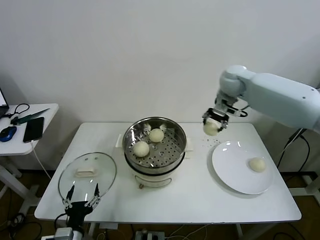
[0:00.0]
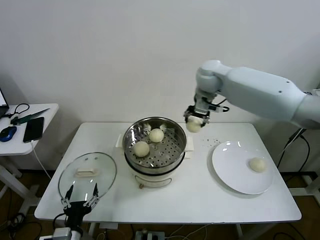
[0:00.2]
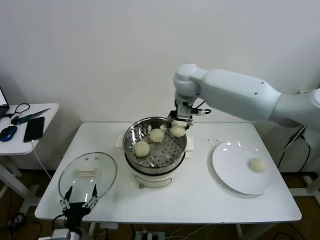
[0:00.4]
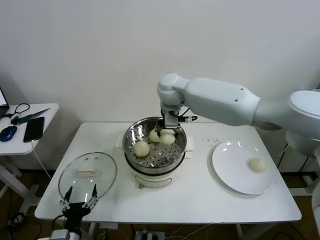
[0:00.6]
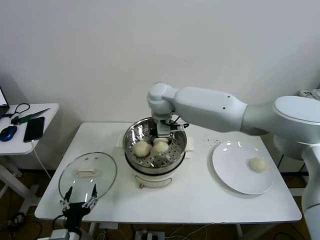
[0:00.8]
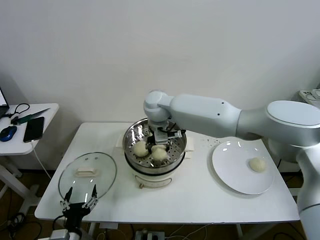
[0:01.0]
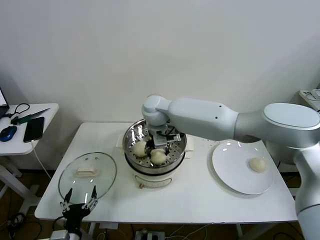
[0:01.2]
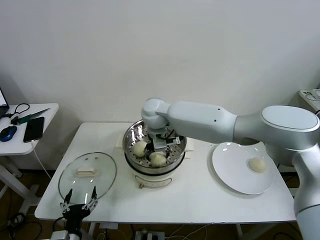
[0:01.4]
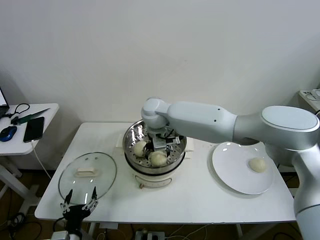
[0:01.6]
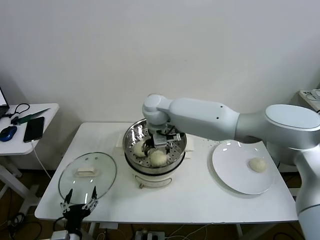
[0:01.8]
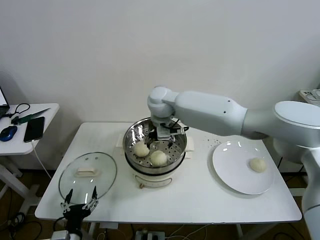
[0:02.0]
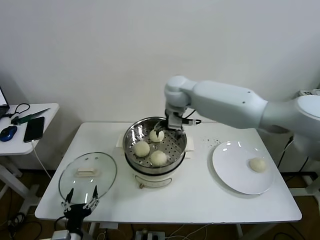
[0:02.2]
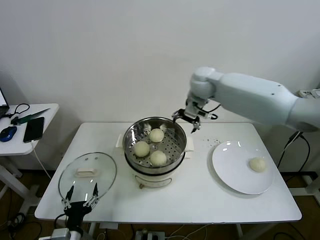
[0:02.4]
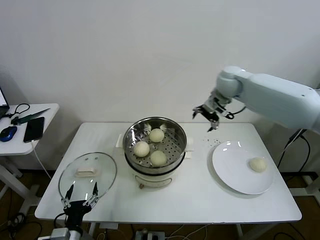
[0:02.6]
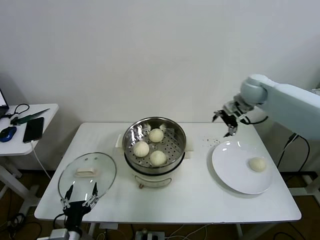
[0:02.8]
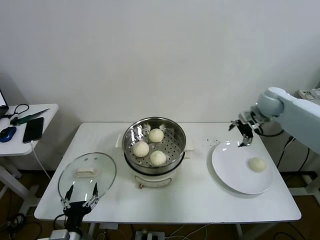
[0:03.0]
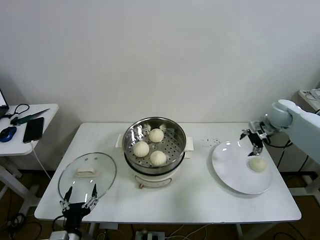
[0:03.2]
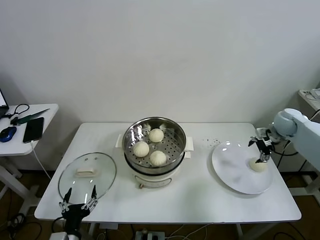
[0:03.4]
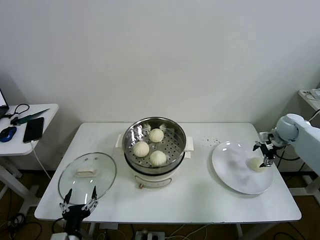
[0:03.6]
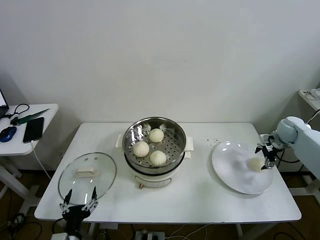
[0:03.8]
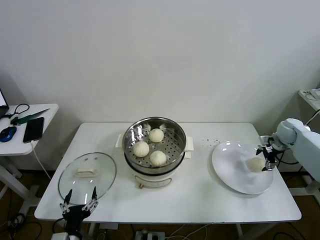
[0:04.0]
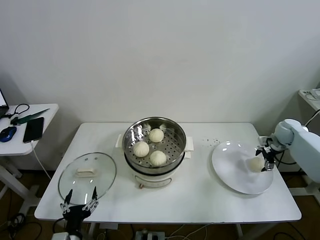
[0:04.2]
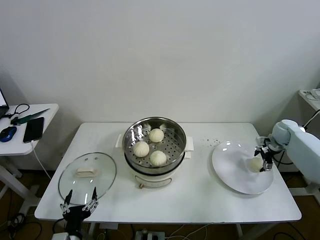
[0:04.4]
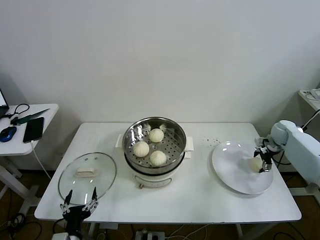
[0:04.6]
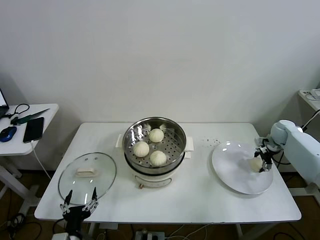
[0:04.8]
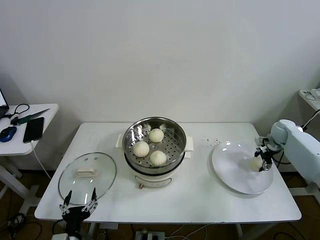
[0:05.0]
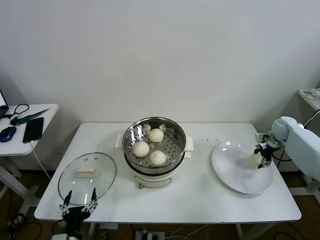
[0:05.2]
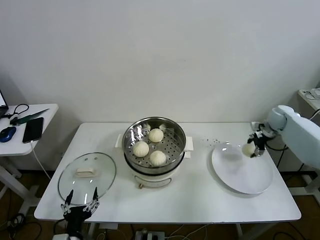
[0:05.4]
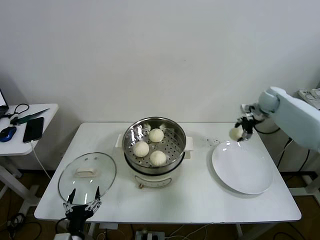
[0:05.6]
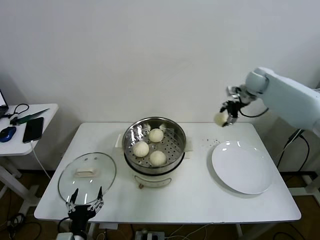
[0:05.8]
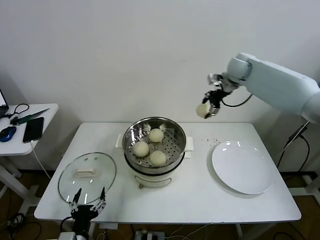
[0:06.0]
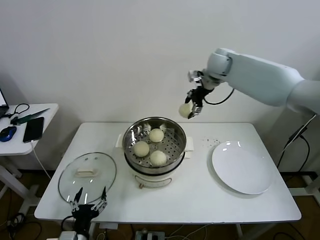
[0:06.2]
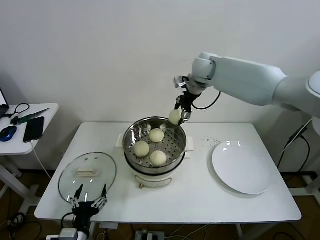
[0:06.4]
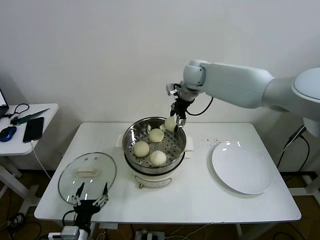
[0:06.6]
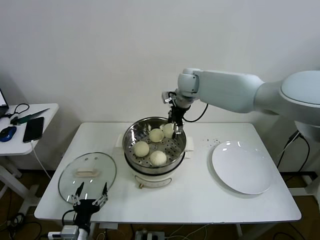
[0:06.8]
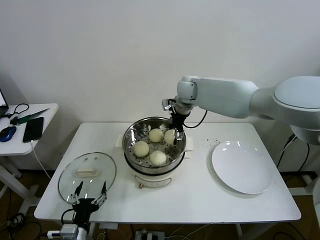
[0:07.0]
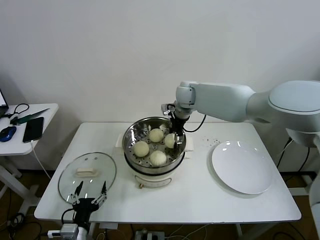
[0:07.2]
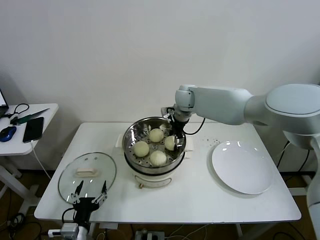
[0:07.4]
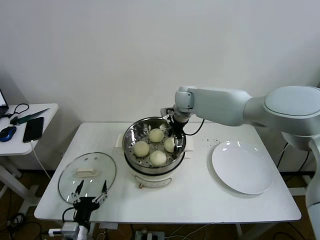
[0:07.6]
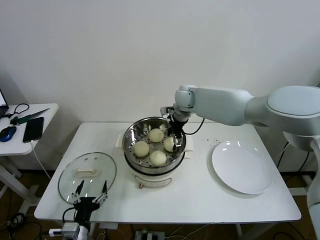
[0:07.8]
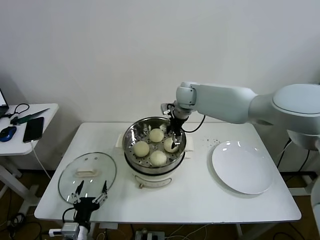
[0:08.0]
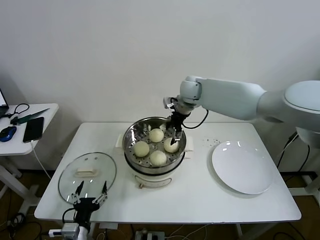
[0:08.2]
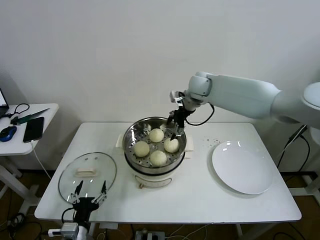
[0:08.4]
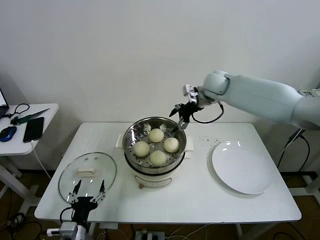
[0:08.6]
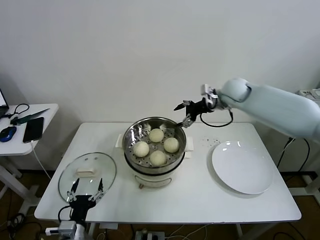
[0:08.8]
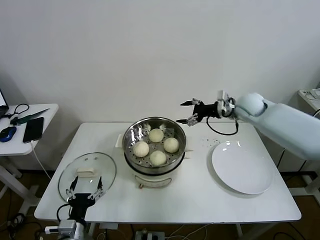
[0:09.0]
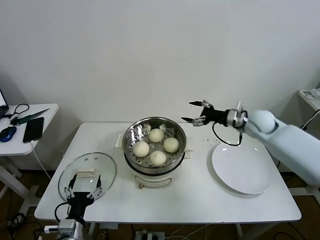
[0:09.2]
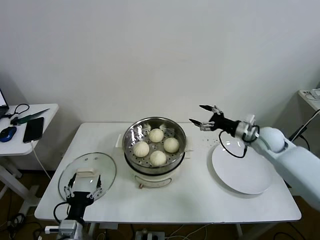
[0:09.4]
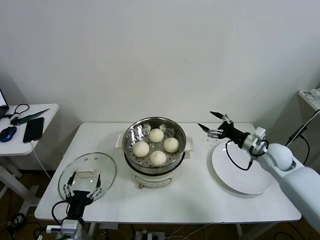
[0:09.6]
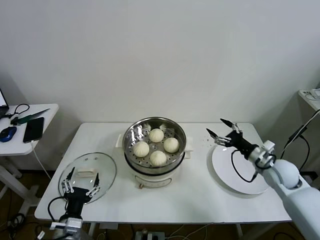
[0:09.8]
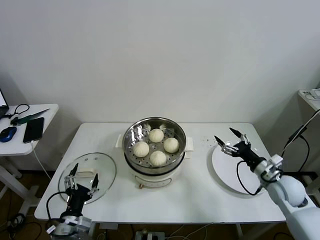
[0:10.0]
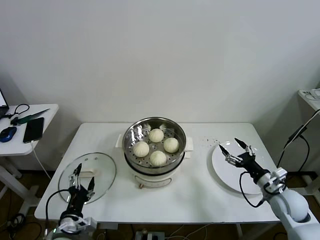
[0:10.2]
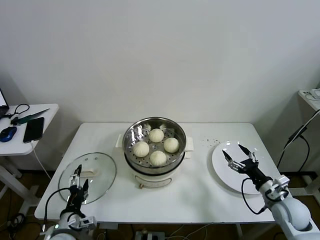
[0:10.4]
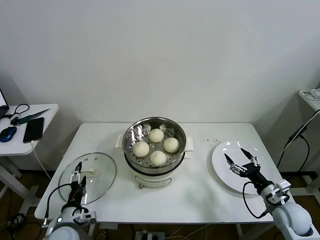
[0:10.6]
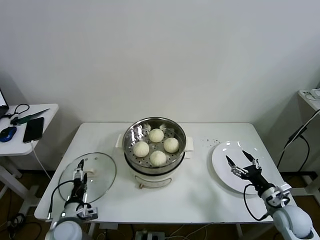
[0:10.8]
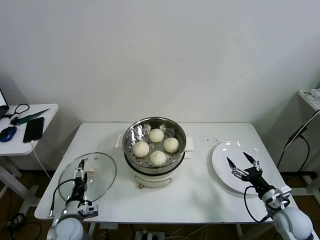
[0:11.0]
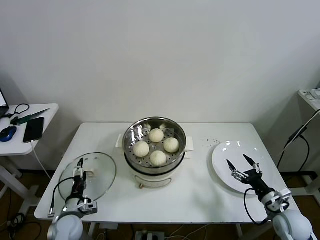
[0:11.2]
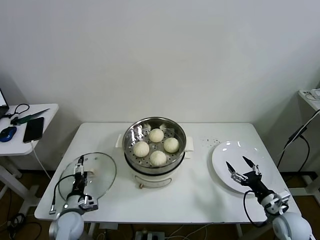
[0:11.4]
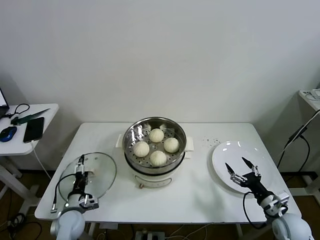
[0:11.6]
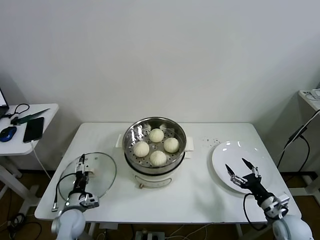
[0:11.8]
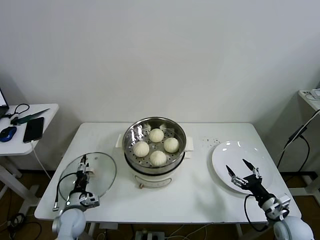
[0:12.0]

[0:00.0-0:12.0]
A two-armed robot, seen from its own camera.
Task of the whole recording: take steamed baozi put them in steamer then cover it.
Step, 0:00.0 to 0:01.6: Place the baozi on the steamer with right gripper.
Step, 0:01.8 to 0:04.8: Grasp the baozi in the plate with right gripper.
Step, 0:05.0 to 0:08.0: Place the baozi on the steamer with right gripper.
0:00.0 to 0:01.6: The right gripper heads to the left, covering about 25 cm, and opens its fingers.
0:01.6 to 0:03.0: The right gripper heads to the right, covering roughly 40 cm.
0:03.0 to 0:04.4: The right gripper travels downward and to the right by some 15 cm.
0:04.4 to 0:06.0: The right gripper shifts some 35 cm upward and to the left, and closes its fingers.
0:06.0 to 0:07.6: The right gripper shifts roughly 20 cm to the left and downward, and opens.
0:07.6 to 0:09.0: The right gripper moves to the right, some 20 cm.
0:09.0 to 0:10.4: The right gripper moves backward and downward, approximately 35 cm.
0:10.4 to 0:12.0: The right gripper moves roughly 5 cm, while the left gripper heads forward and downward, covering some 15 cm.

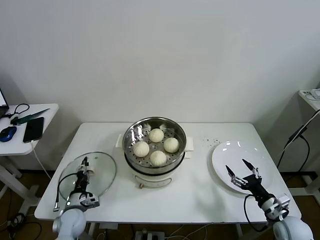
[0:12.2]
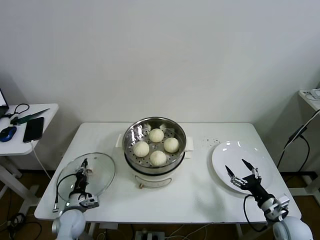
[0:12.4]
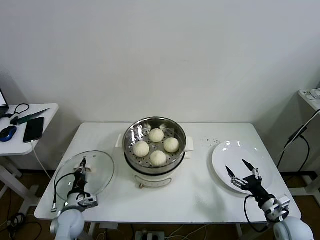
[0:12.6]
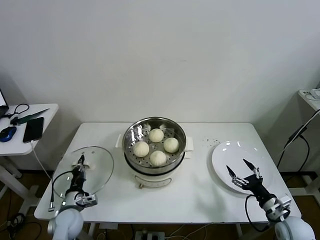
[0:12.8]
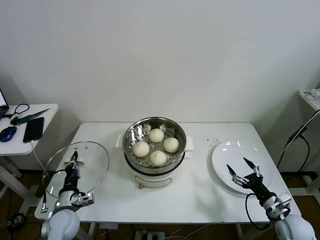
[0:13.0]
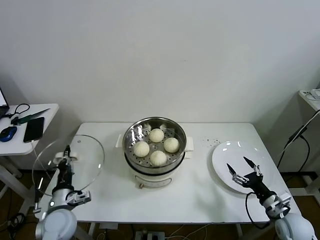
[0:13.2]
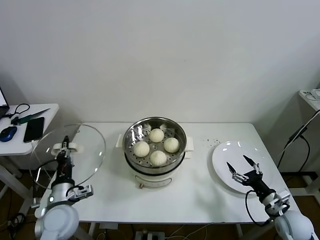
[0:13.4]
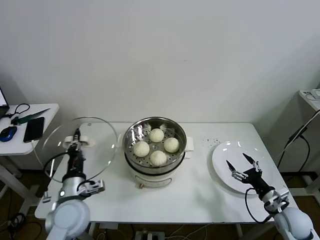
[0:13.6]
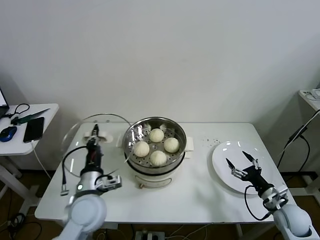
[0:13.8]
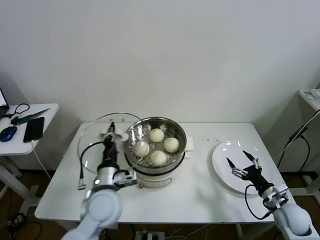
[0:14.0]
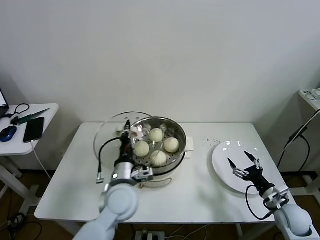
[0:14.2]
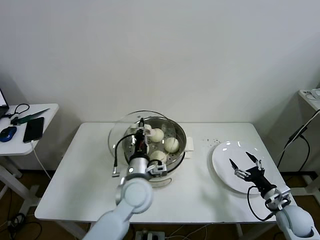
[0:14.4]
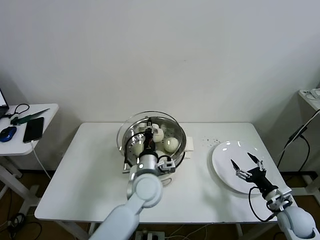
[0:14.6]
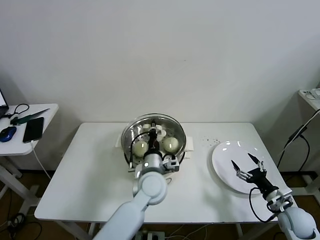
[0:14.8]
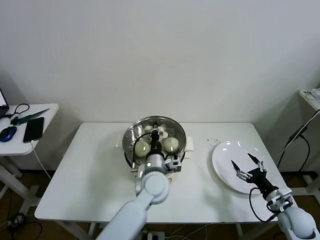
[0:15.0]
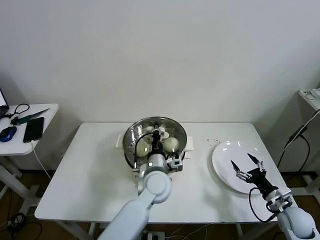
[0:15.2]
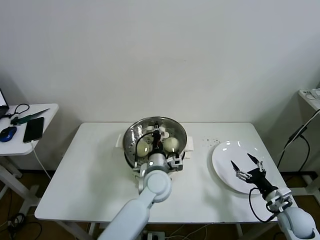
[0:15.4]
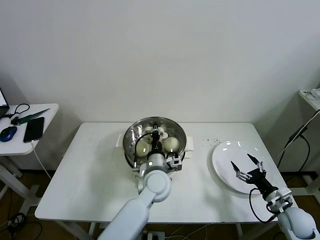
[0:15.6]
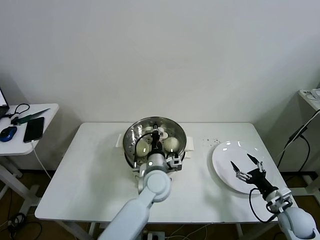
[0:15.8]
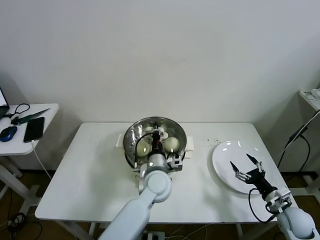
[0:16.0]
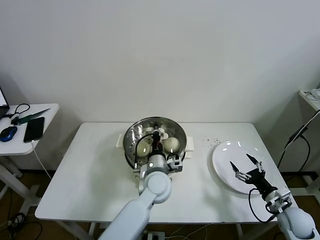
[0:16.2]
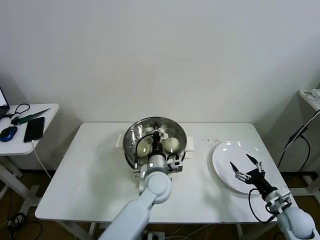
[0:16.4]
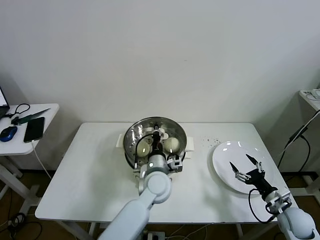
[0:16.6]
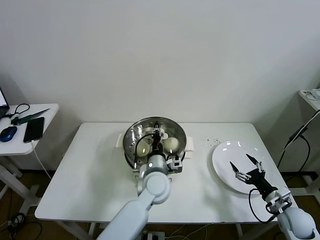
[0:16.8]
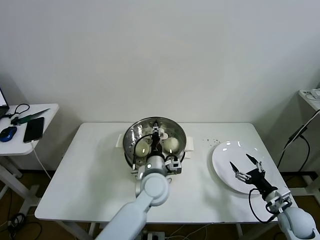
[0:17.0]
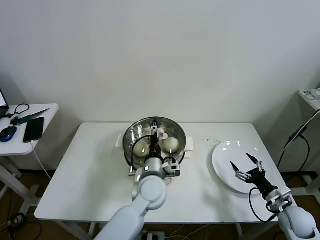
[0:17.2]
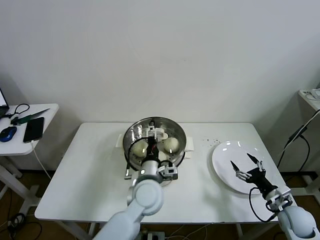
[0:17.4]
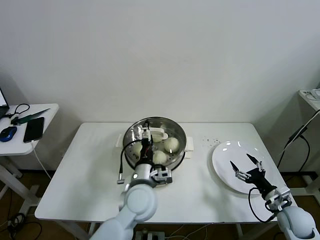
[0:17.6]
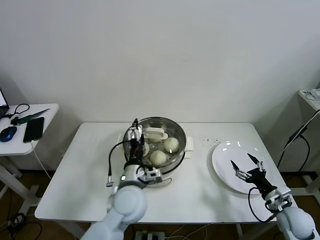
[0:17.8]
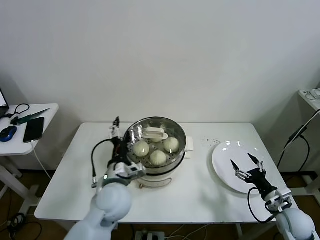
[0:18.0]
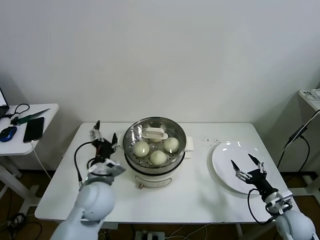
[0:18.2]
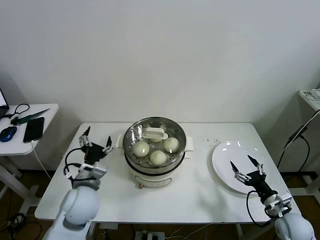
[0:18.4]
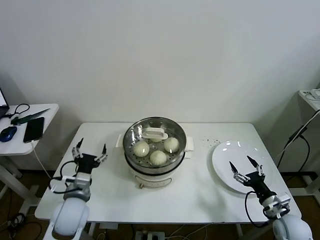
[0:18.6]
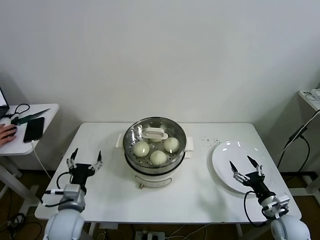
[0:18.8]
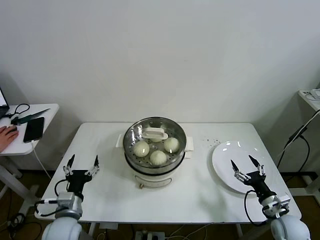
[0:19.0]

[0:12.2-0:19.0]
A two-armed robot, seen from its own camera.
Task of the whole recording: take steamed baozi put them in steamer then cover it.
Step, 0:12.6 to 0:16.8: Place the pot lid on the steamer with left gripper.
0:12.2 to 0:13.6: The left gripper travels upward and to the right by approximately 20 cm, and closes.
0:13.6 to 0:15.0: The left gripper goes approximately 25 cm to the right.
0:15.0 to 0:16.2: There are only small adjustments of the grippers.
0:16.2 to 0:17.6: The left gripper goes roughly 5 cm backward, and opens.
0:17.6 to 0:19.0: The left gripper heads to the left, covering roughly 25 cm.
